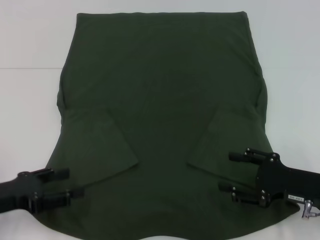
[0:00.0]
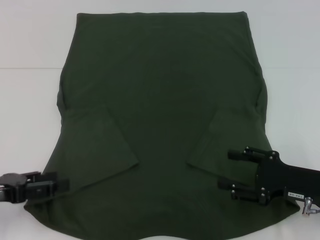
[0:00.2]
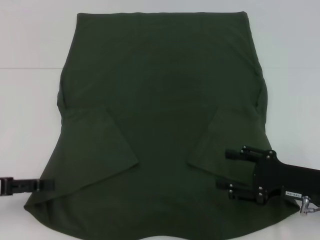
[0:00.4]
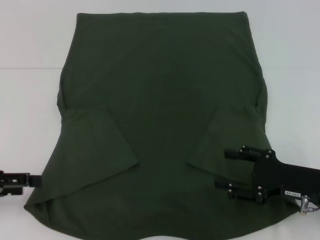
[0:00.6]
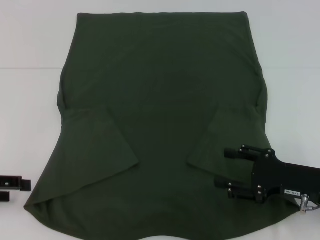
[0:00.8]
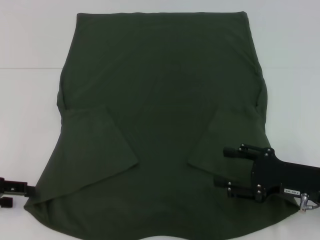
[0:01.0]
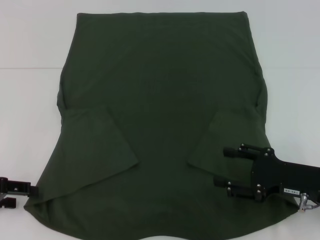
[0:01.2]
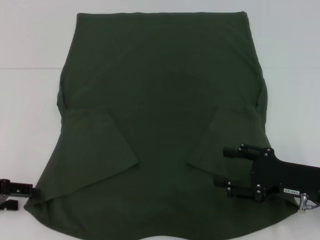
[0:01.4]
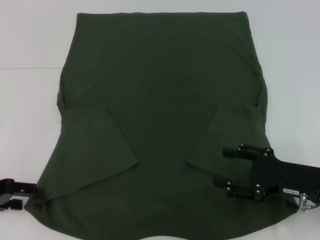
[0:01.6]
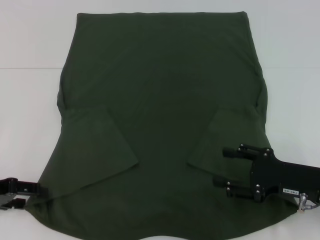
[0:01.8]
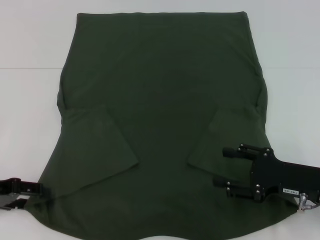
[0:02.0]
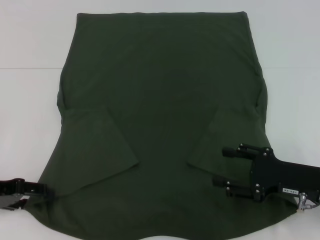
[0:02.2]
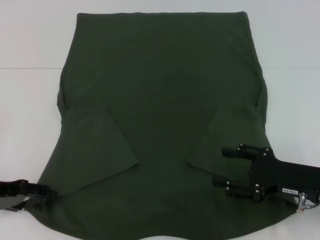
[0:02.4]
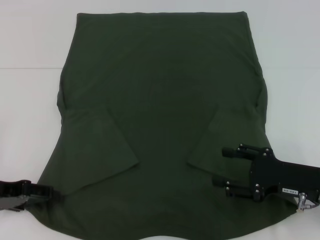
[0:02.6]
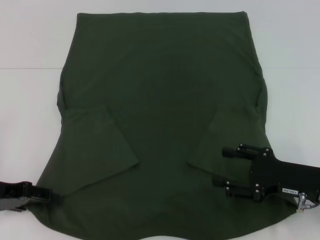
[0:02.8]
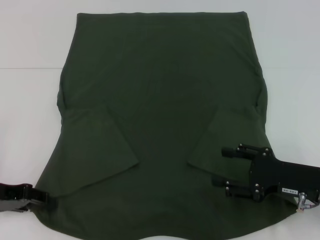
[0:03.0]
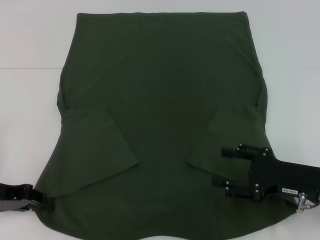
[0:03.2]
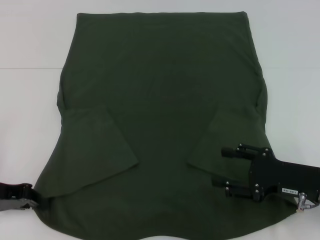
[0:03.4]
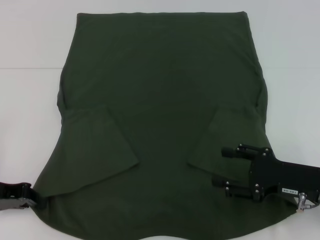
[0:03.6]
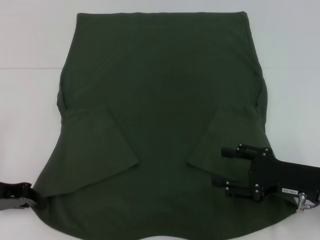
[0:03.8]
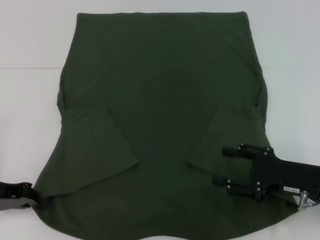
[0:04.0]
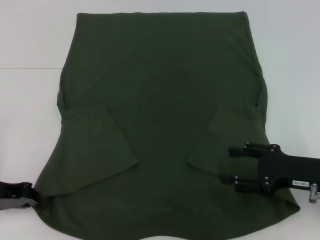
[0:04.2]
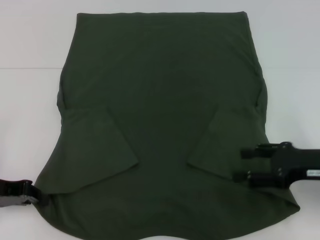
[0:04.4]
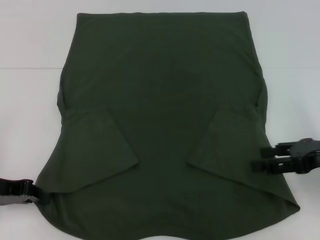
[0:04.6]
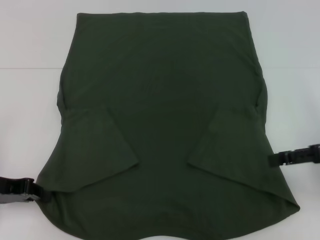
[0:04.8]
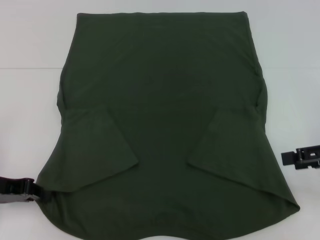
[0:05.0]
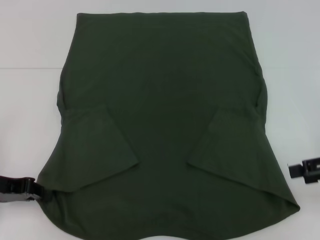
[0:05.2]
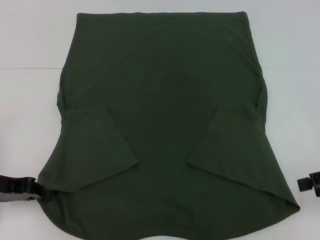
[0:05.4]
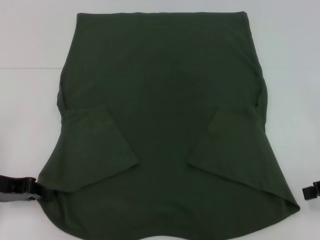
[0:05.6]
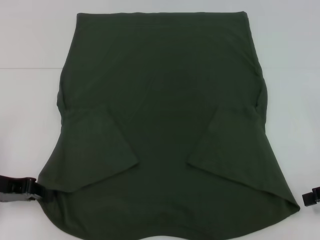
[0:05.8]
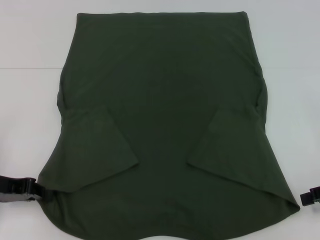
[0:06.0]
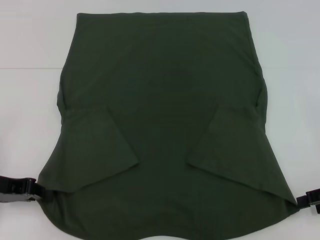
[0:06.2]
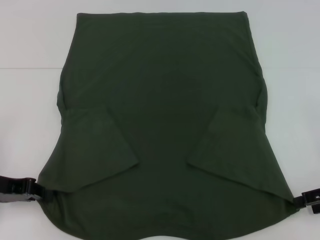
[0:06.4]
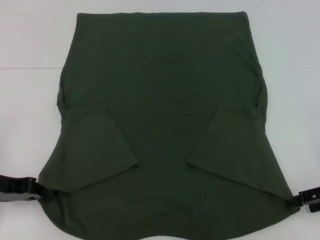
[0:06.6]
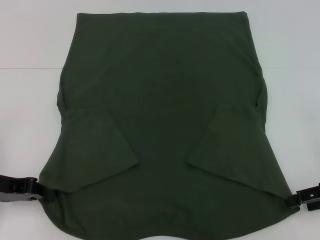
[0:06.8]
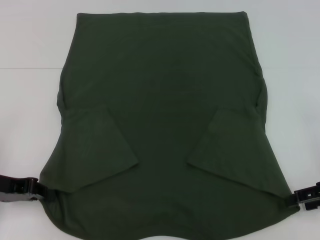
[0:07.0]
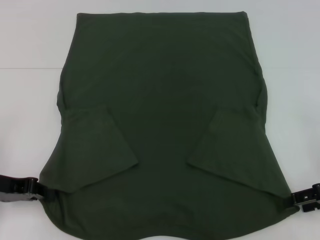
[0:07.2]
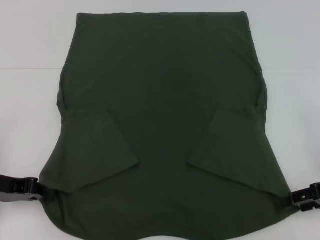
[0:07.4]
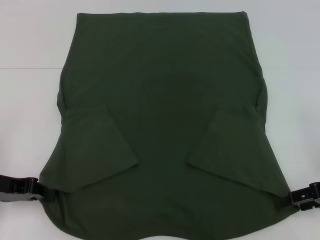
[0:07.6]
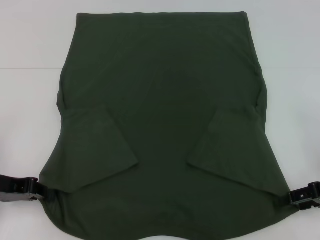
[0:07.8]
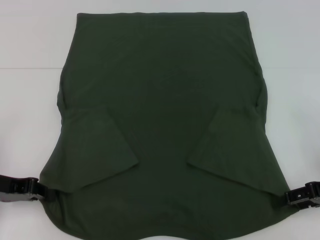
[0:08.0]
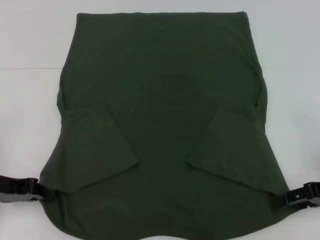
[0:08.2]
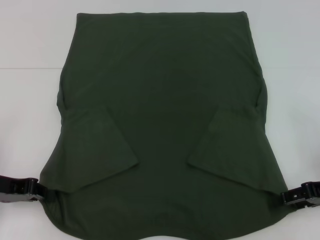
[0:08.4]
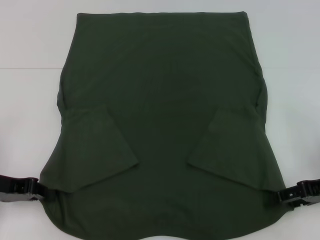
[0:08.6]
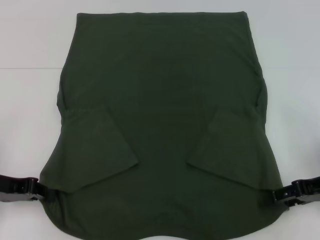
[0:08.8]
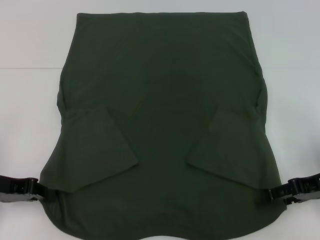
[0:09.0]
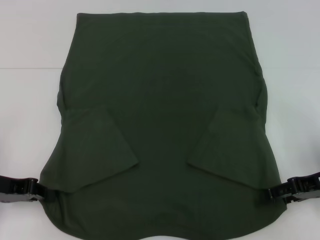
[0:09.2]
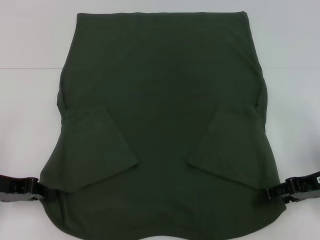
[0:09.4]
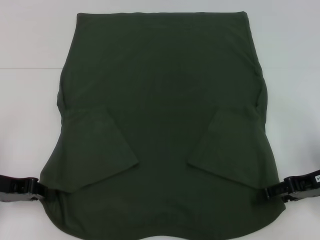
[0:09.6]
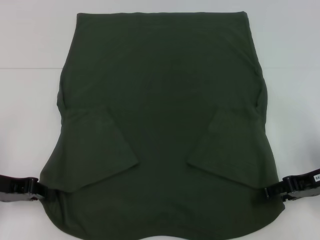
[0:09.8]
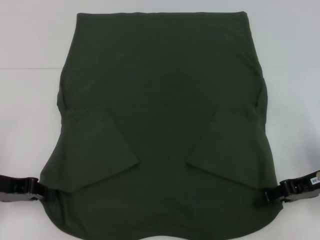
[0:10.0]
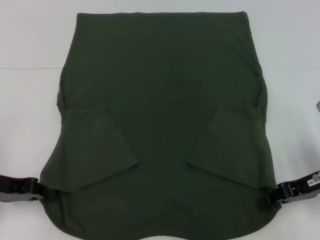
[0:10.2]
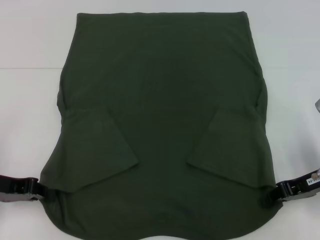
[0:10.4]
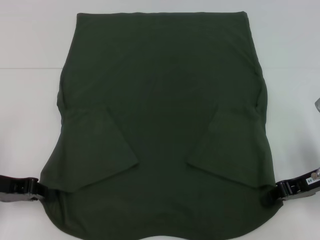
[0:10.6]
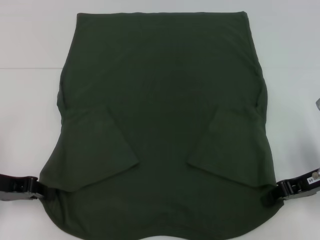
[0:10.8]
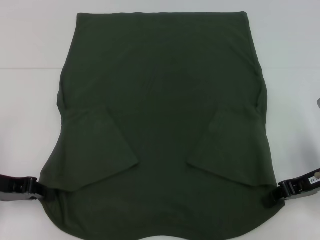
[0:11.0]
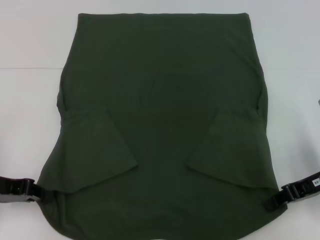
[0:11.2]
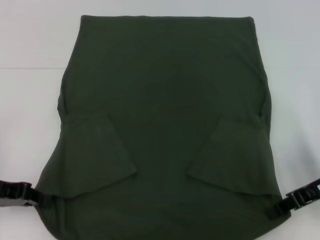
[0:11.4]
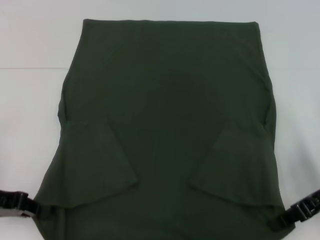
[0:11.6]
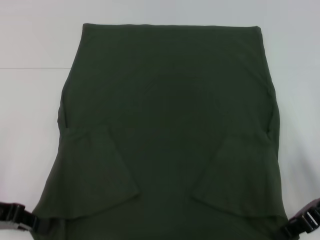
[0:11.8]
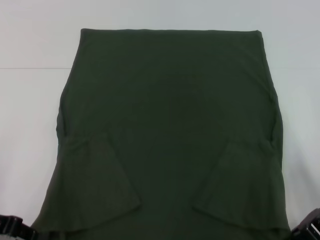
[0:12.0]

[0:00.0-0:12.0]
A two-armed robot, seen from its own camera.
Step, 0:00.0 to 0:03.6: Grab the bottom left corner with your left hand.
Step, 0:03.8 to 0:11.2: Grab the bottom right corner with your right hand.
0:00.0 to 0:01.6: The left gripper shifts by about 5 cm.
0:01.6 to 0:03.0: The grippers move only a little.
0:03.0 to 0:04.4: The right gripper moves about 5 cm, while the left gripper closes up.
0:04.4 to 0:06.0: The right gripper goes about 5 cm to the right.
0:07.6 to 0:09.0: The grippers stay close to where they were, moving slightly.
0:09.0 to 0:10.4: The right gripper closes up.

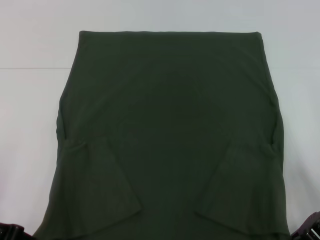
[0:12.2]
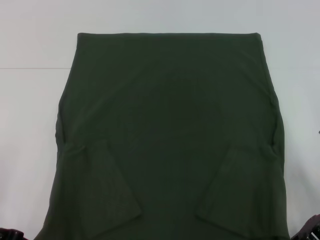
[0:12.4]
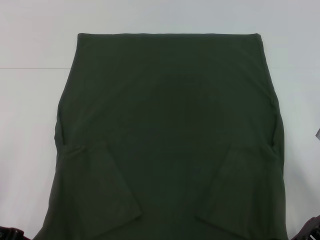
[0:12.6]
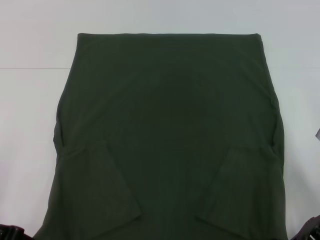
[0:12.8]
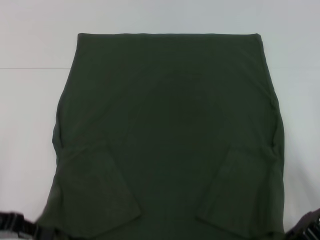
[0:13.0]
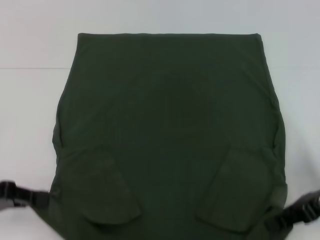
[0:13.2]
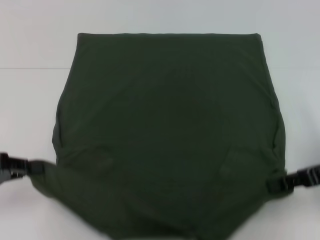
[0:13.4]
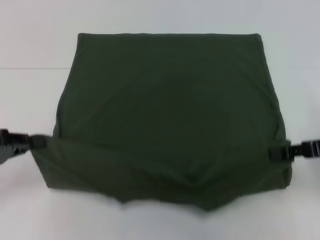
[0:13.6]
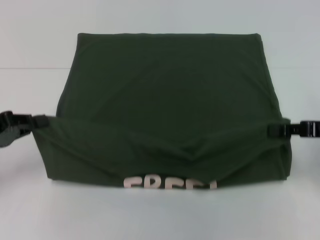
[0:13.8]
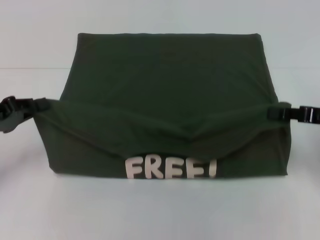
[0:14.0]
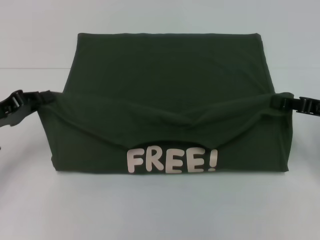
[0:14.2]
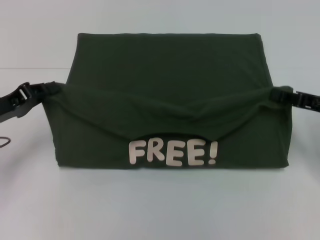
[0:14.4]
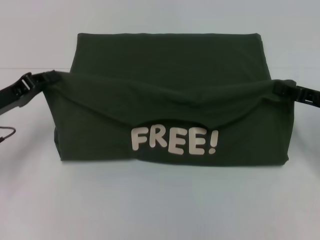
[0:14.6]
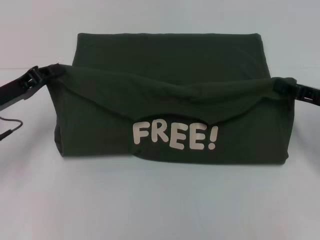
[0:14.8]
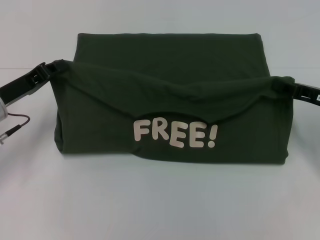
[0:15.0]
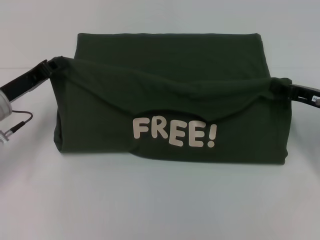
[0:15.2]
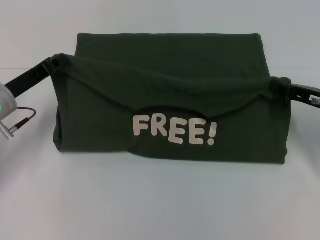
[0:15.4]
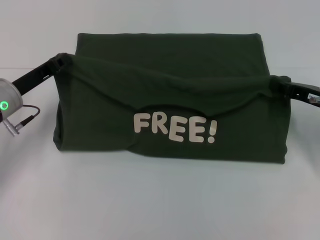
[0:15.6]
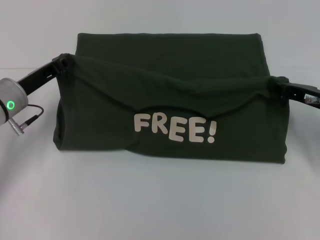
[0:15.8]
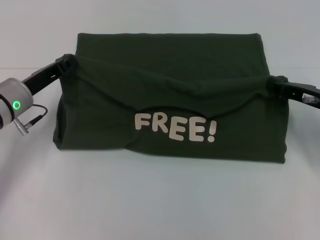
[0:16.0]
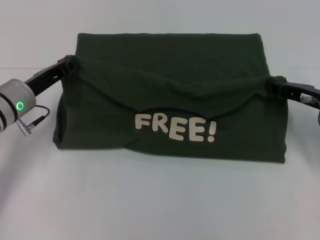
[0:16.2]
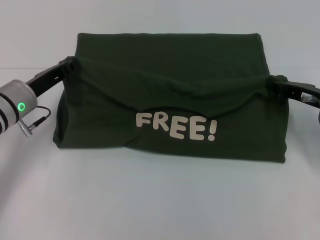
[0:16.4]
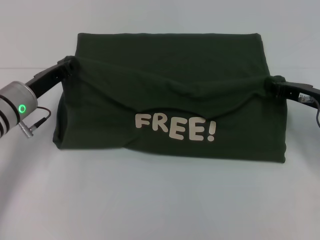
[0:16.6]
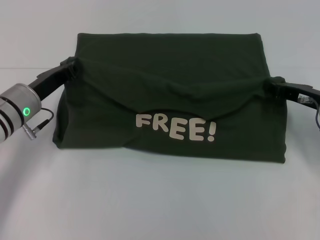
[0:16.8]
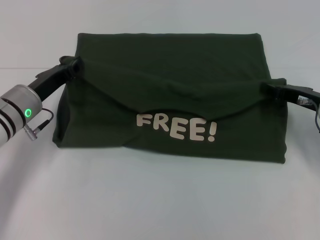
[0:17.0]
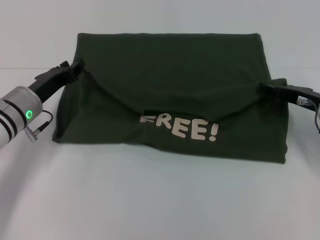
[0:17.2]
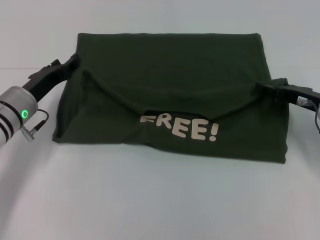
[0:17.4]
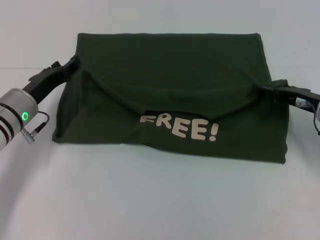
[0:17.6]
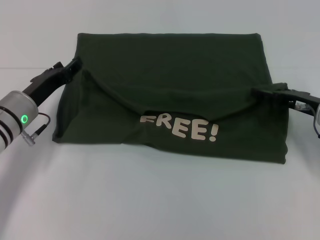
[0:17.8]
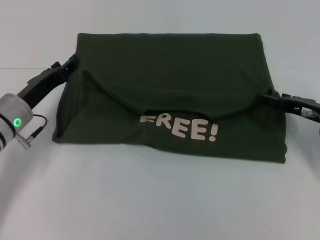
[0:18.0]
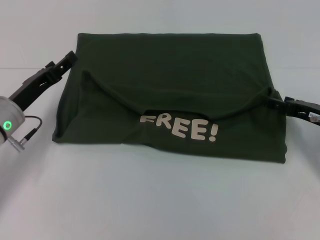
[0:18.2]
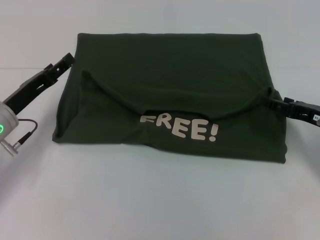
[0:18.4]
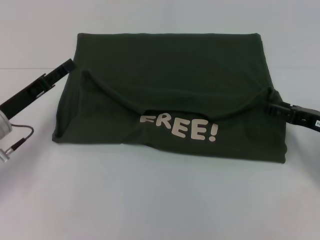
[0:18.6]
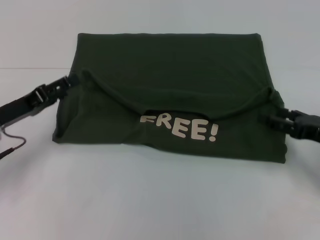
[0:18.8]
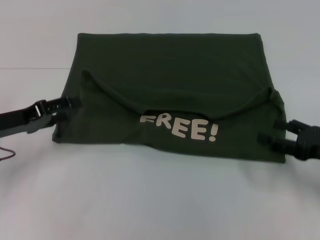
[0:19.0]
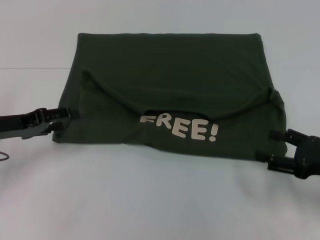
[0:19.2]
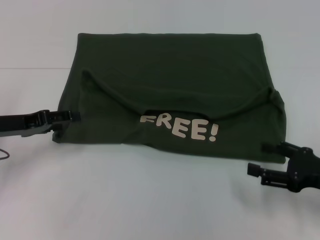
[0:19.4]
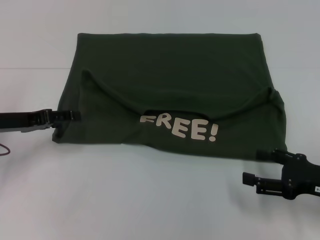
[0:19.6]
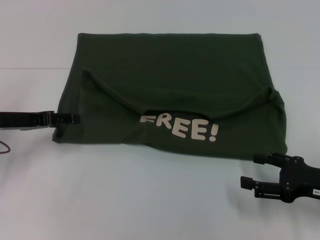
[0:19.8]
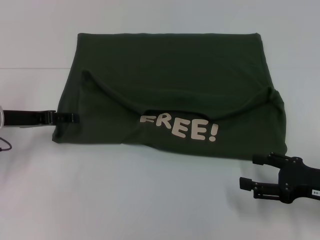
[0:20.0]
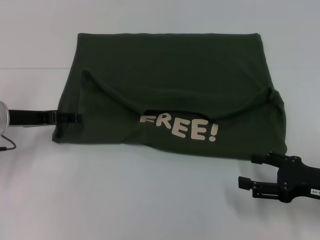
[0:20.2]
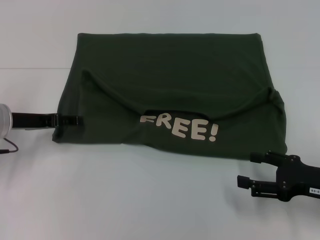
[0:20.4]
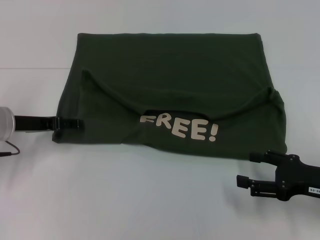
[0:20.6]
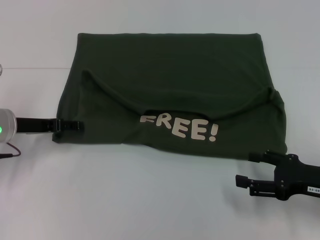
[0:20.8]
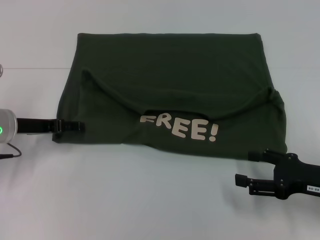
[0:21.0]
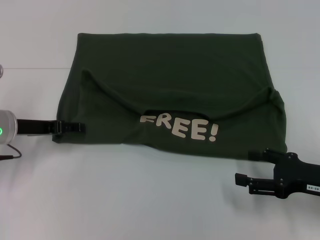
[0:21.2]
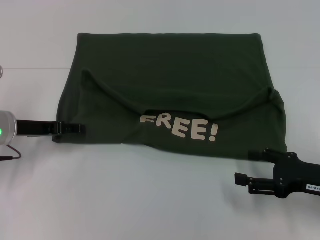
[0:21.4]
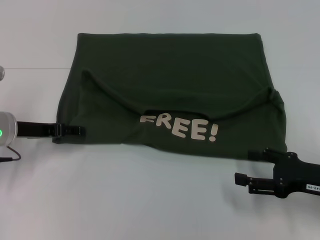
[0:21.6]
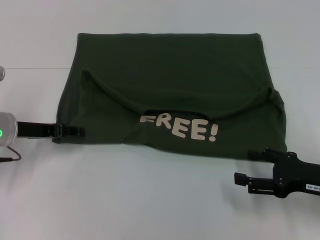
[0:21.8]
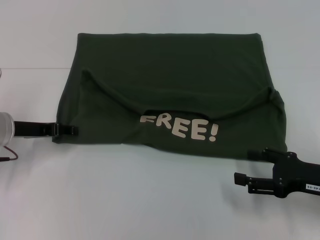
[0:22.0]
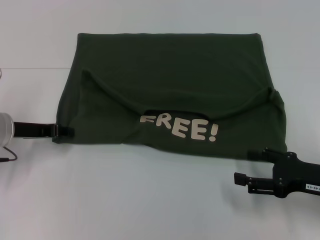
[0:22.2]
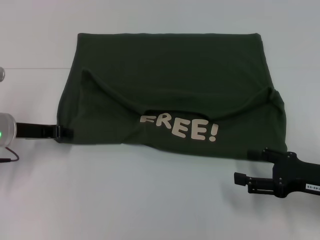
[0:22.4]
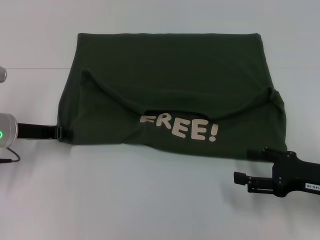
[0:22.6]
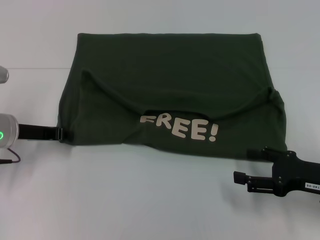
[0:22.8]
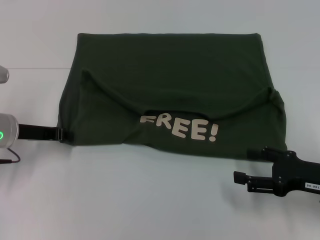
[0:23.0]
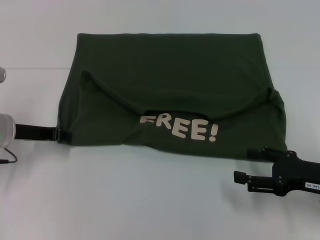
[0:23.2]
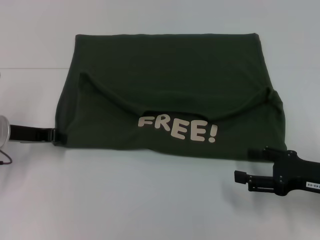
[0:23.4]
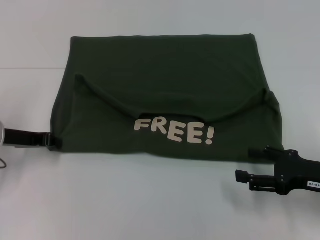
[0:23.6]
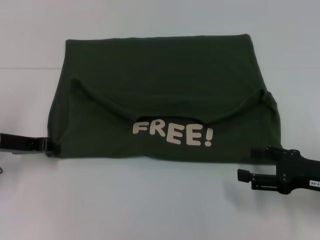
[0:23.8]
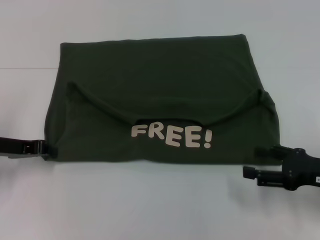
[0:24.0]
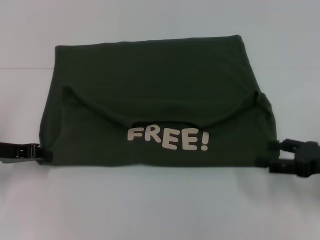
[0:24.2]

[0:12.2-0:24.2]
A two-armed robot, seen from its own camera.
Step, 0:12.2 to 0:18.6: Fold the clothes with your left hand.
Step, 0:12.2 to 0:18.6: Fold the clothes with your right hand.
0:12.2 to 0:13.8: The right gripper ends up approximately 5 cm from where it was.
0:13.8 to 0:15.2: The right gripper ends up approximately 5 cm from where it was. The left gripper is displaced forward and to the right by about 10 cm.
0:15.2 to 0:16.6: The grippers stay close to where they were, moving slightly.
0:16.6 to 0:18.2: The right gripper opens, while the left gripper opens.
0:18.2 to 0:19.8: The left gripper ends up approximately 5 cm from where it was; the right gripper shifts roughly 10 cm backward.
0:19.8 to 0:21.2: There are only small adjustments of the grippers.
0:21.2 to 0:22.6: The left gripper closes up.
0:22.6 to 0:24.2: The left gripper changes place by some 5 cm.
